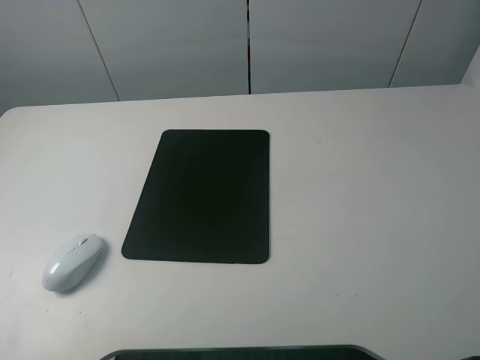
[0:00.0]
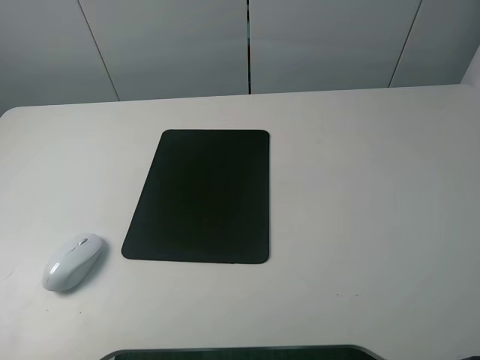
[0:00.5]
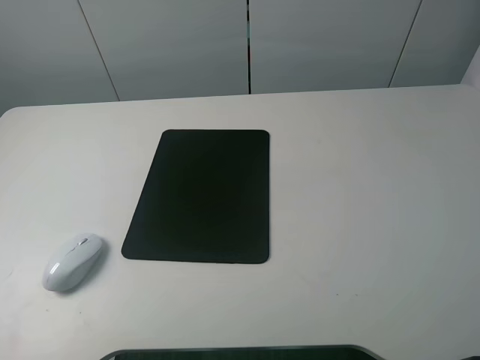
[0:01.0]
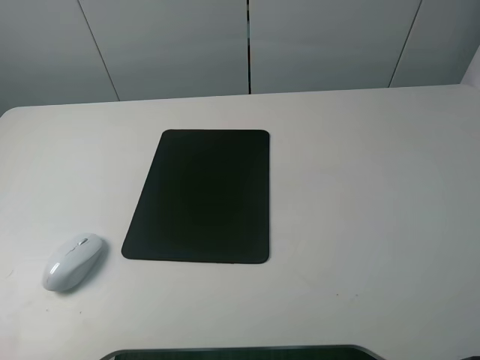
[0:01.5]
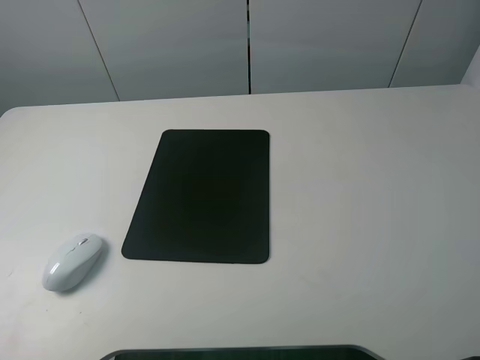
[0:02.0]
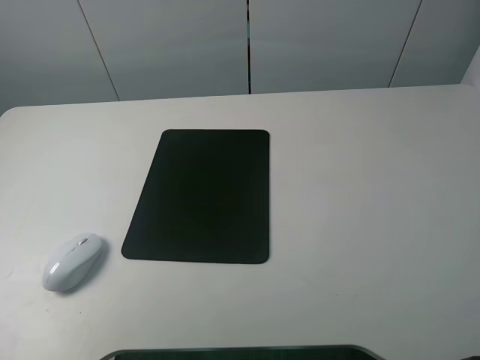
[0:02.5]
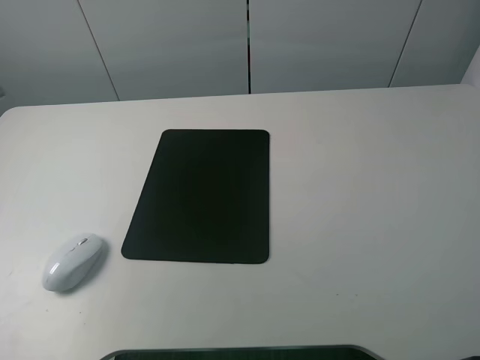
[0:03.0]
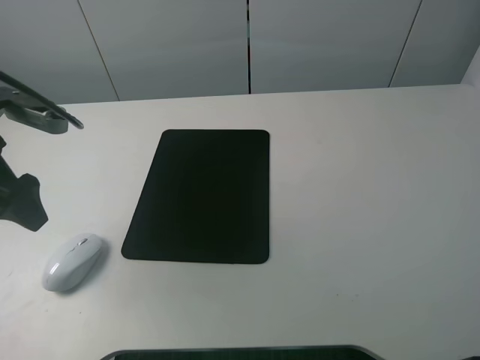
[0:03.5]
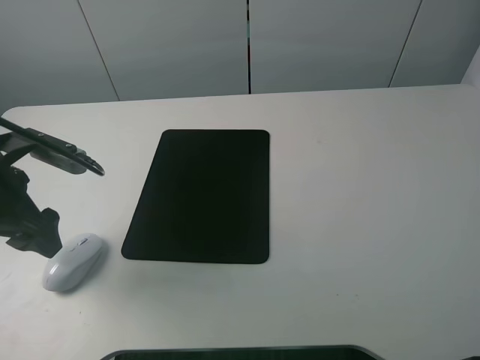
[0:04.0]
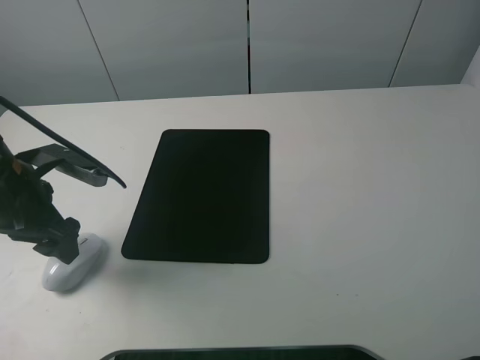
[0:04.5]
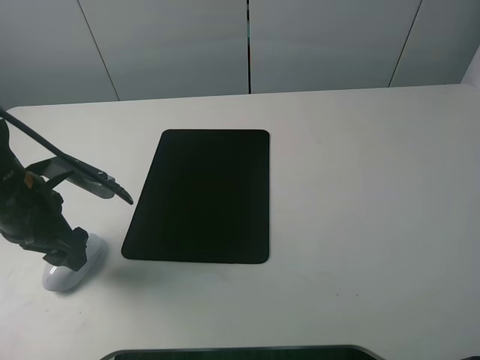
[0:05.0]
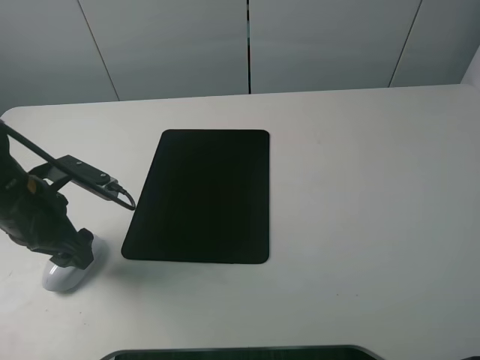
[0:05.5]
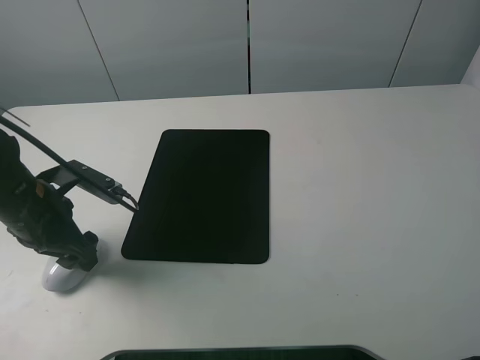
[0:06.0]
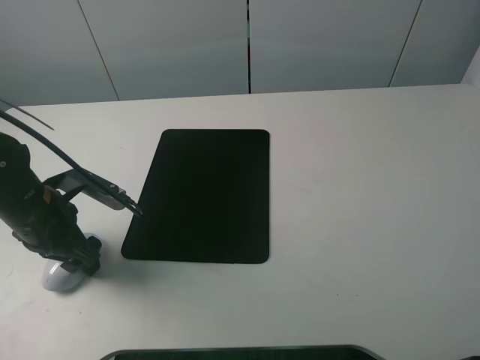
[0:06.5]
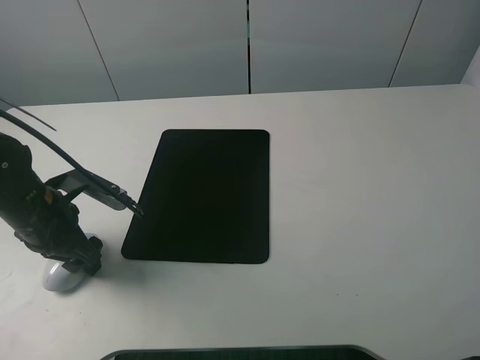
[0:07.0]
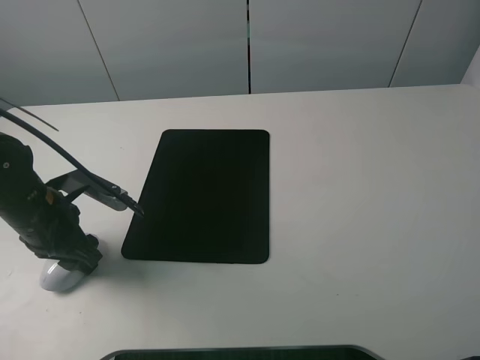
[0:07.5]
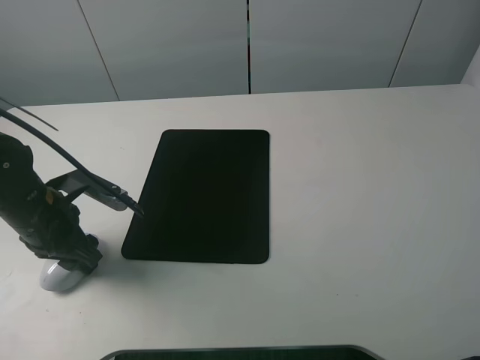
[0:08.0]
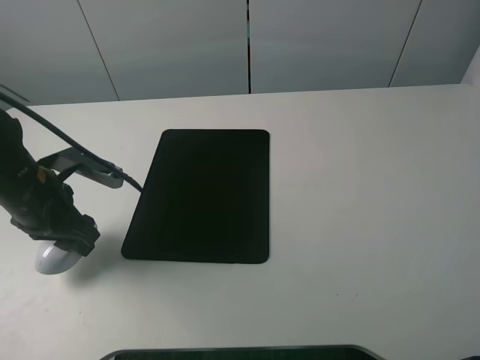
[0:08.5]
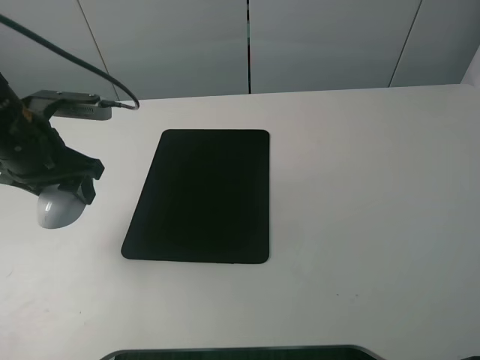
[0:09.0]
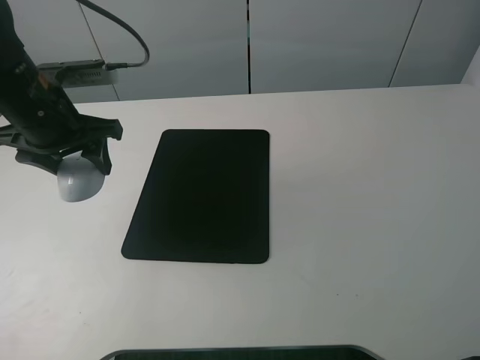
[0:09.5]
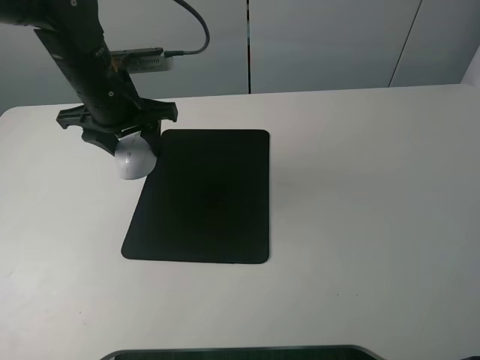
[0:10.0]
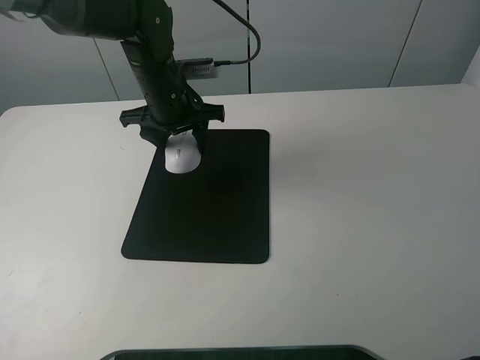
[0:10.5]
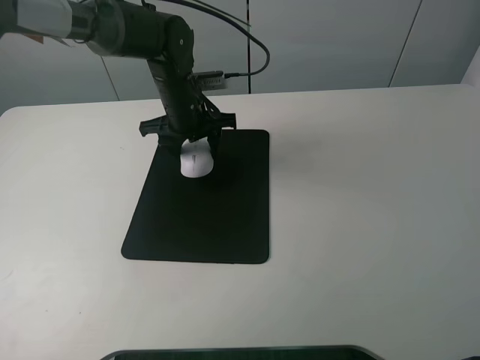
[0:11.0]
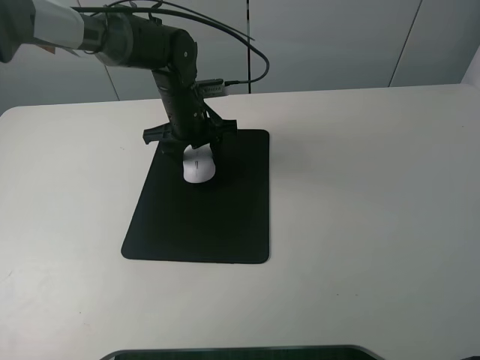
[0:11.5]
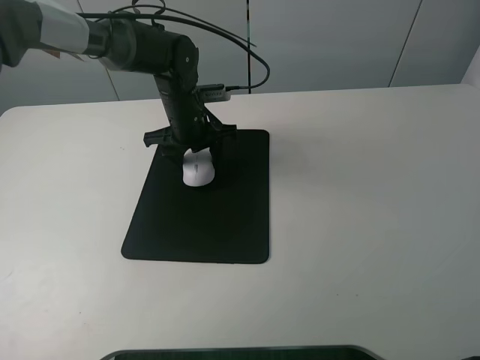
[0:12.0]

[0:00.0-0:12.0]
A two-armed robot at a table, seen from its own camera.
Step, 0:00.0 to 0:08.0: Grasp the mouse with the left gripper.
0:02.0 to 0:04.0: The left gripper moves forward and downward, approximately 25 cm.
0:04.0 to 0:06.0: The left gripper goes approximately 5 cm downward.
0:06.0 to 0:08.0: The left gripper closes up.
0:08.0 to 0:10.0: The left gripper is displaced forward, upward and to the right by approximately 20 cm.
0:10.0 to 0:12.0: The left gripper goes some 15 cm downward, to the right and forward.

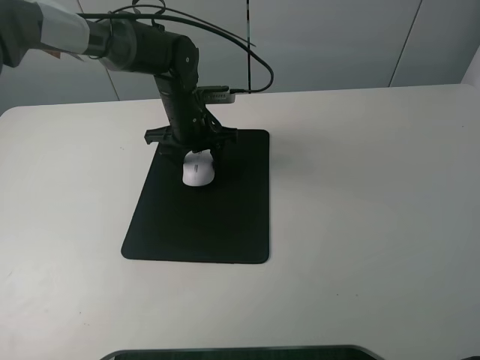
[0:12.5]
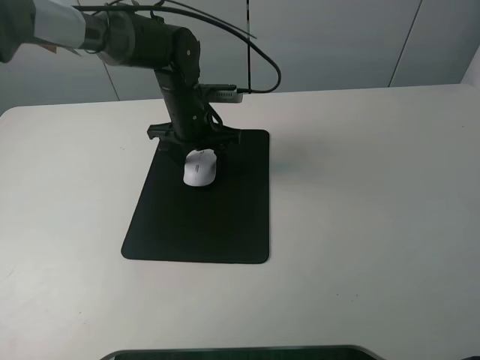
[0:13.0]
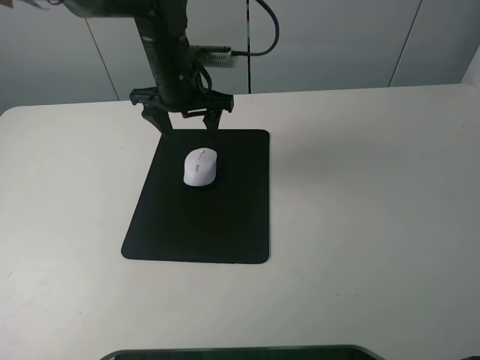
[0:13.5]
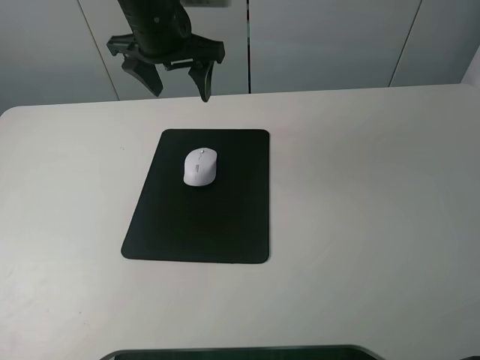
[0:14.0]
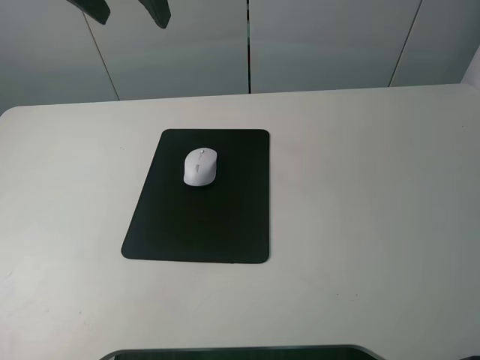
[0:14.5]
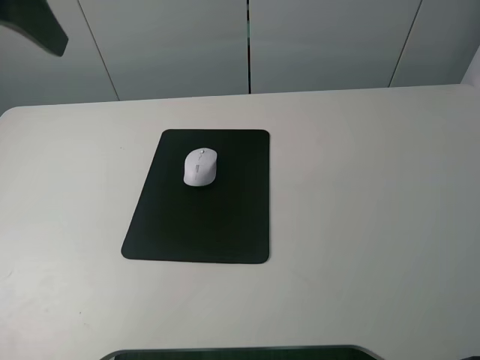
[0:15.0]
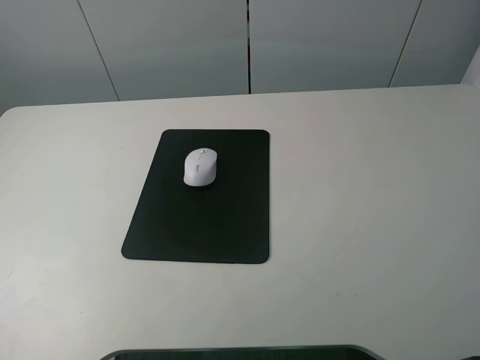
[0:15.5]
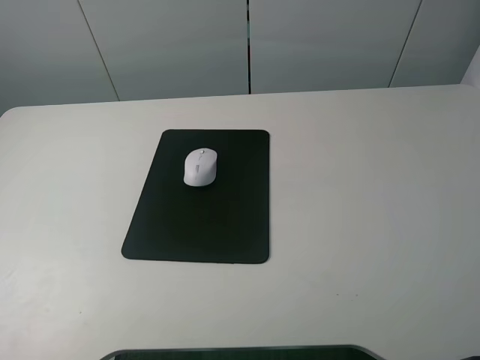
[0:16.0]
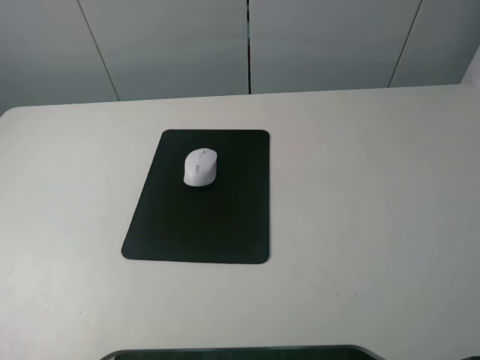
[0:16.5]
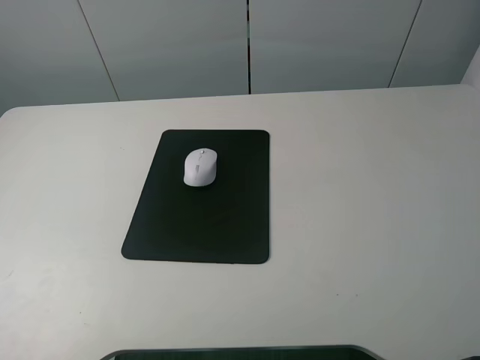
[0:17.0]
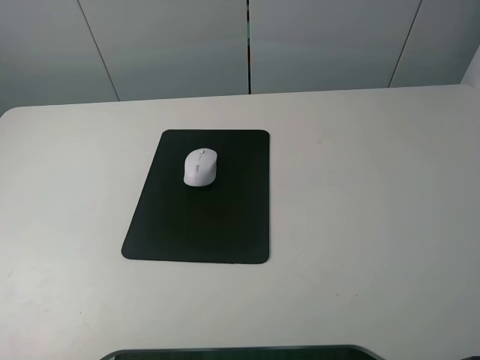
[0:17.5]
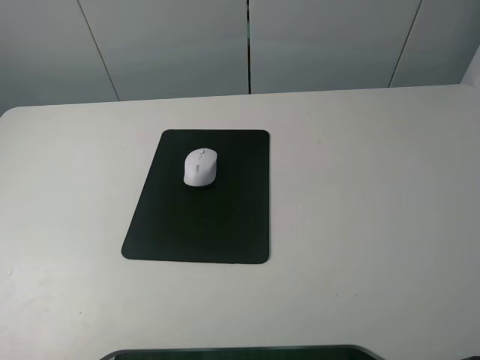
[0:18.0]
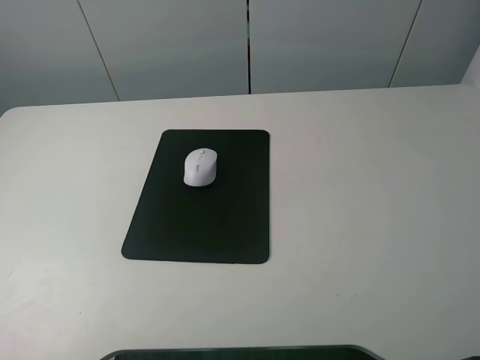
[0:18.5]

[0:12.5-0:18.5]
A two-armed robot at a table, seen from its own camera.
0:12.5 to 0:14.5: The left gripper shifts approximately 30 cm upward, and opens its fingers.
0:14.5 to 0:16.5: The left gripper travels backward and to the left by roughly 35 cm.

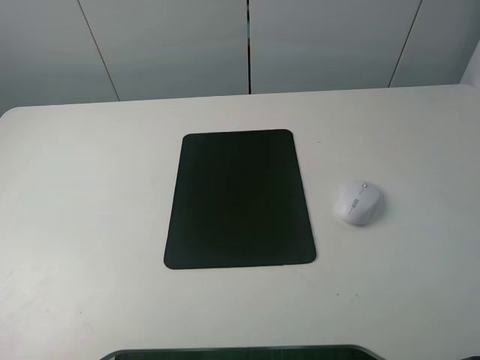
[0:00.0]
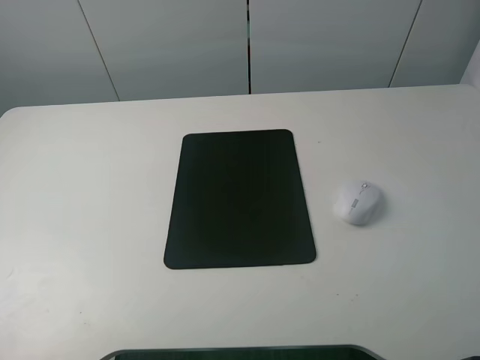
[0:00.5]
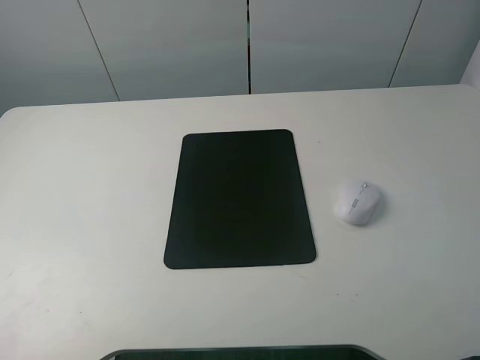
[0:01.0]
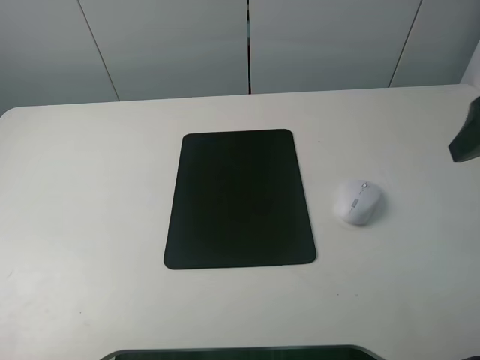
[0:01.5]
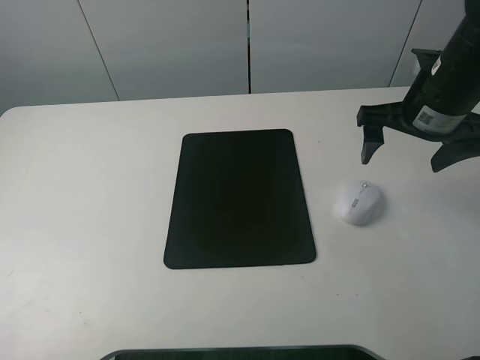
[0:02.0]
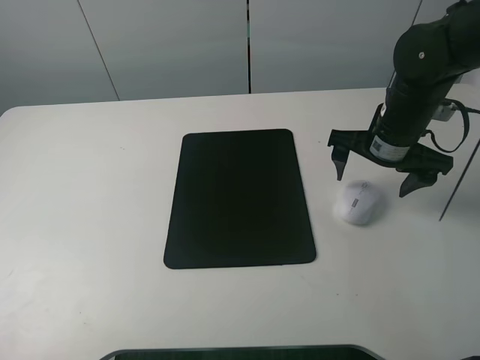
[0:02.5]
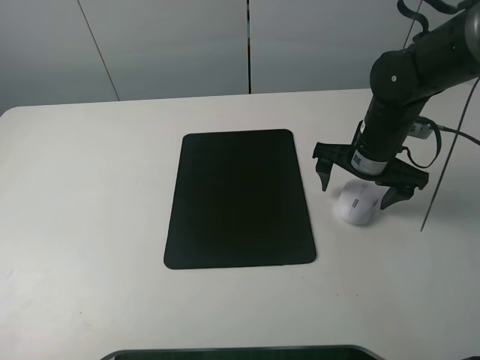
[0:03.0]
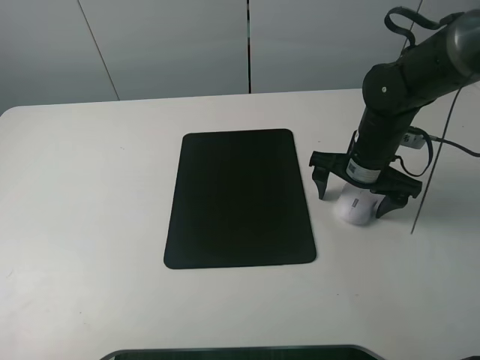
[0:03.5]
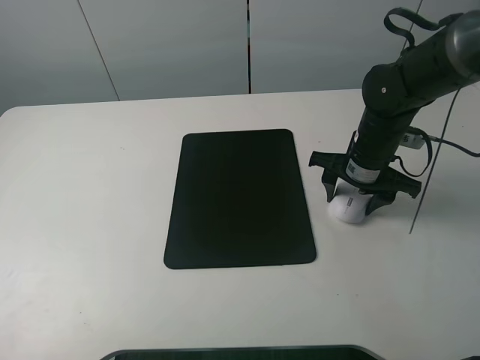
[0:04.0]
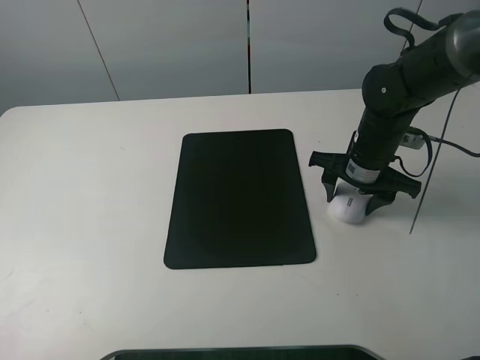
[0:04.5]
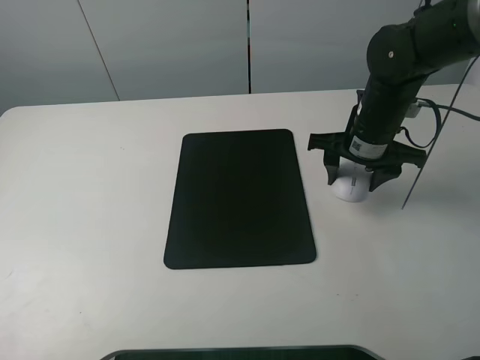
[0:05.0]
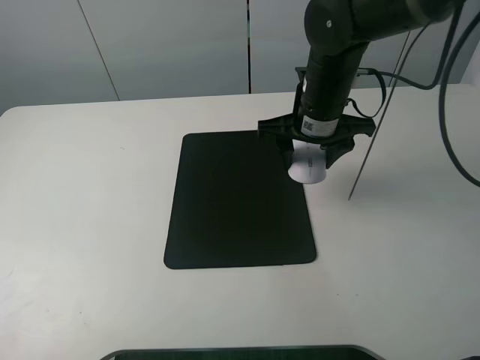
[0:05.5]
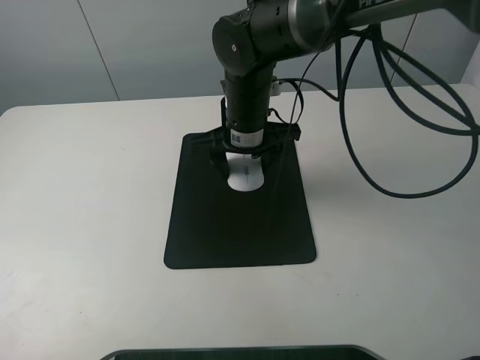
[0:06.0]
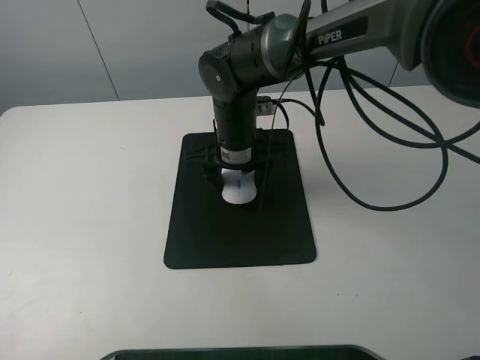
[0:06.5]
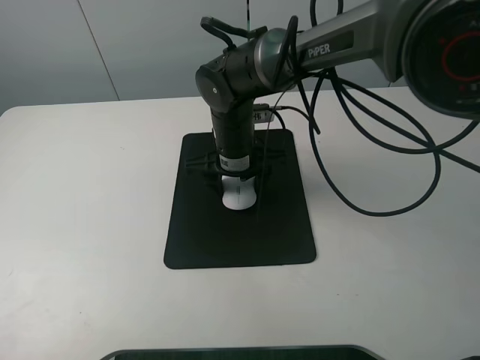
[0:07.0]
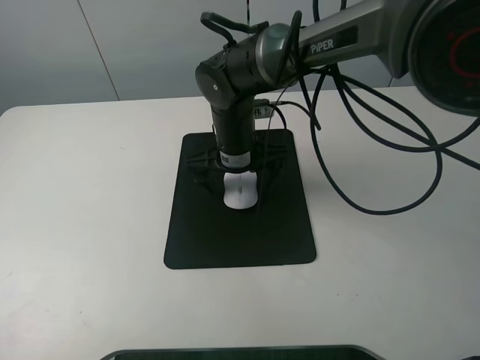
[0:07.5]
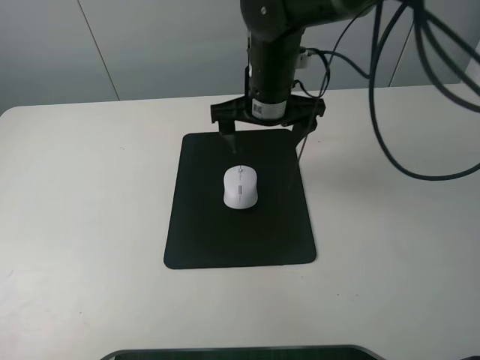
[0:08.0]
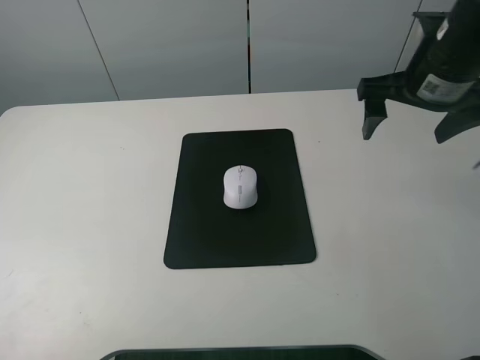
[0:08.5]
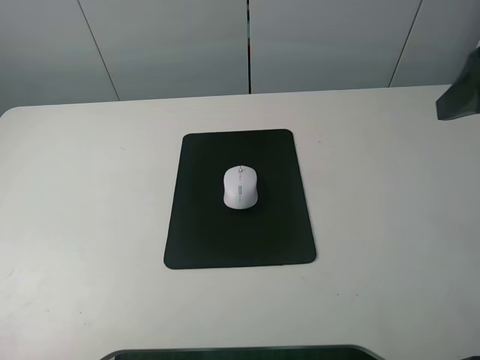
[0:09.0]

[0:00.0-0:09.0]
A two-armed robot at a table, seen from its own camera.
Step, 0:00.0 to 0:04.0: Grasp the mouse with the right gripper.
Step, 0:04.5 to 0:07.0: Place the mouse on the mouse mat with the right gripper.
0:00.0 to 0:02.0: The right gripper is displaced forward by about 30 cm.
0:02.0 to 0:04.5: The right gripper moves downward, about 10 cm, and closes.
0:04.5 to 0:07.0: The right gripper travels to the left by about 20 cm.
0:07.0 to 0:09.0: The right gripper travels to the right, upward and backward by about 40 cm, and opens its fingers.
